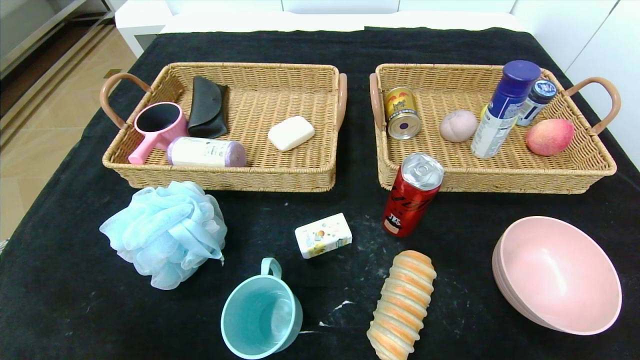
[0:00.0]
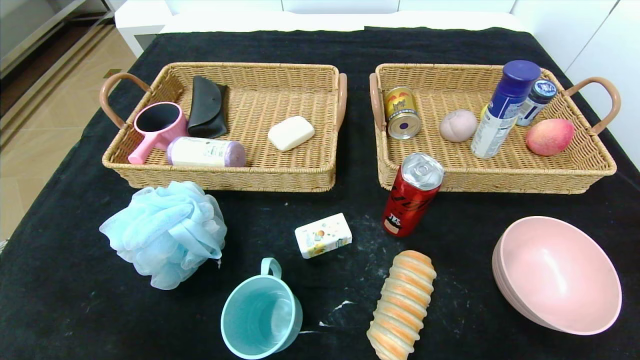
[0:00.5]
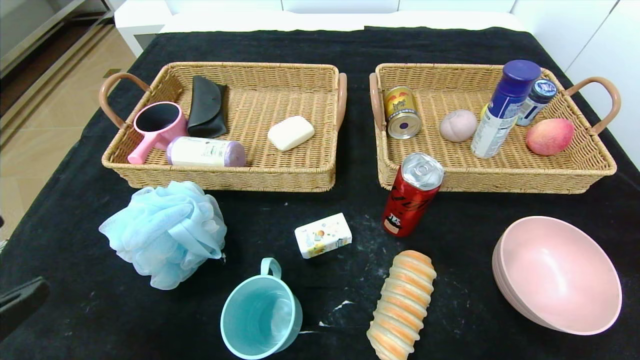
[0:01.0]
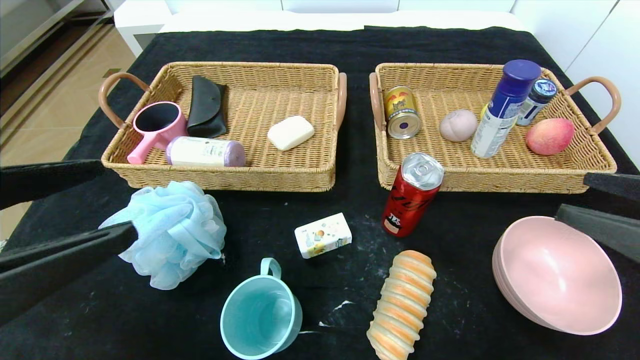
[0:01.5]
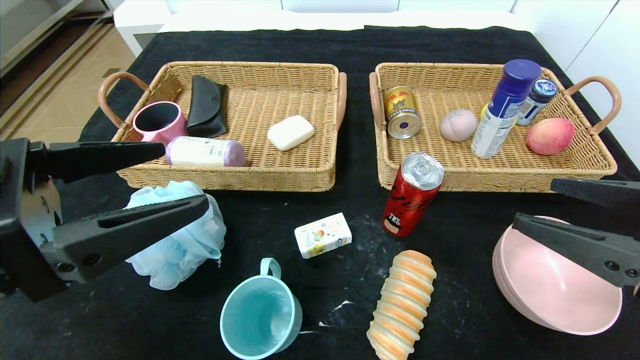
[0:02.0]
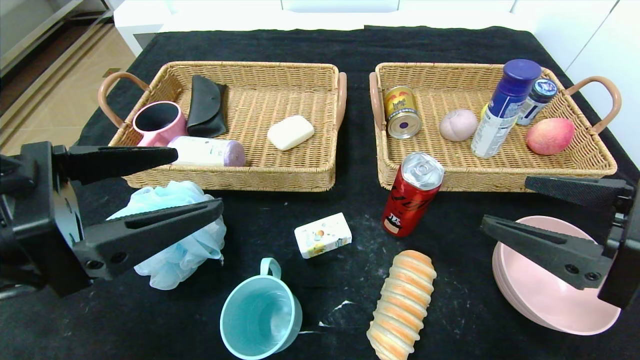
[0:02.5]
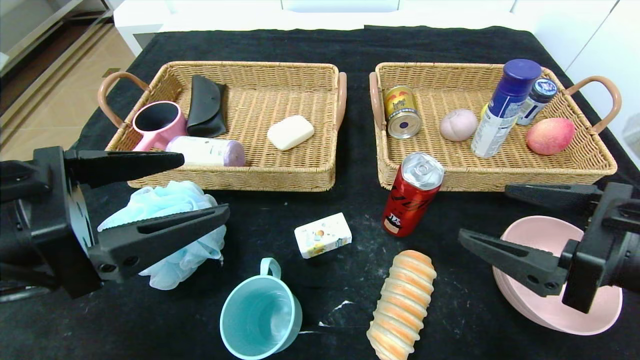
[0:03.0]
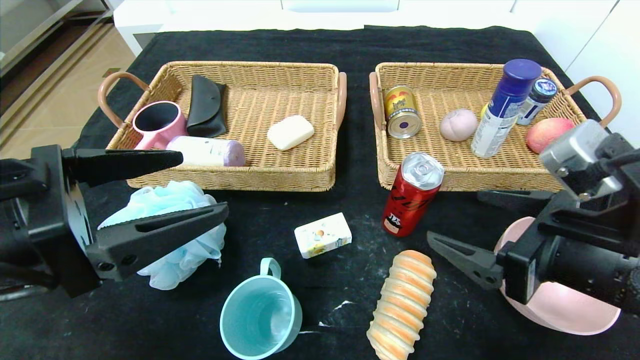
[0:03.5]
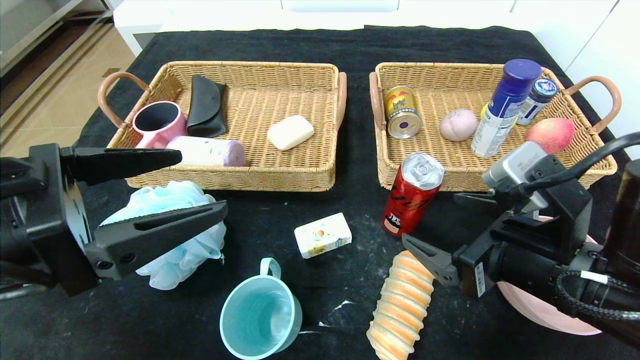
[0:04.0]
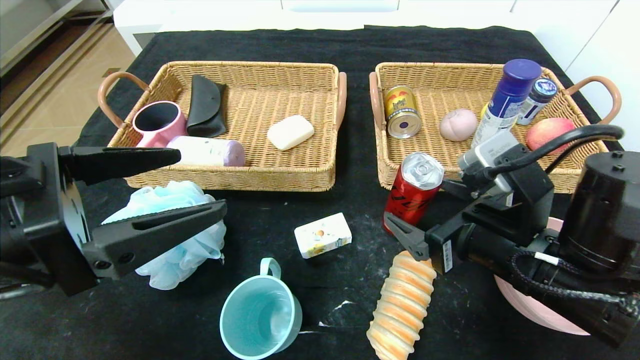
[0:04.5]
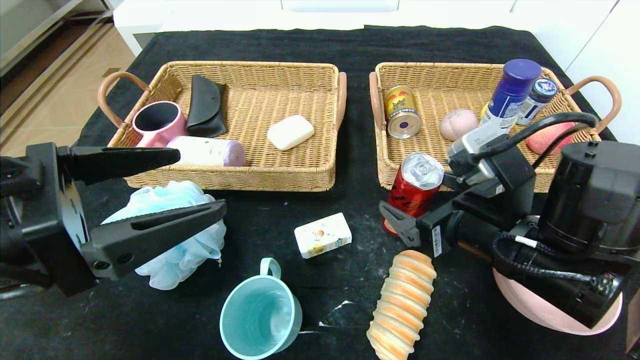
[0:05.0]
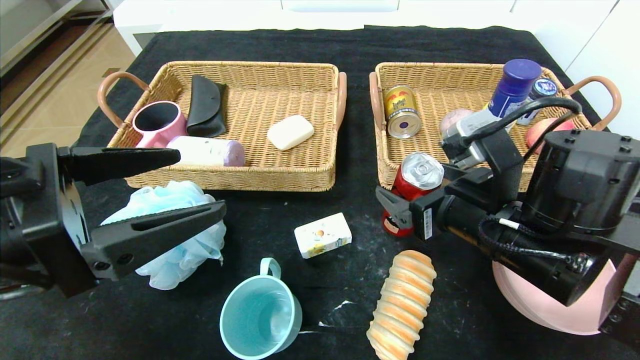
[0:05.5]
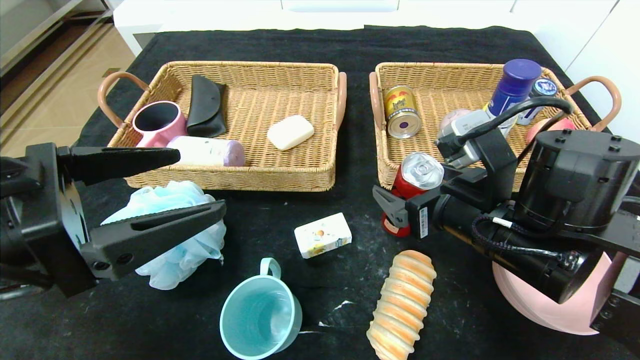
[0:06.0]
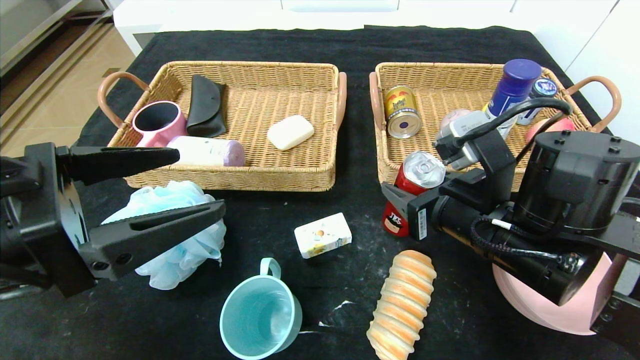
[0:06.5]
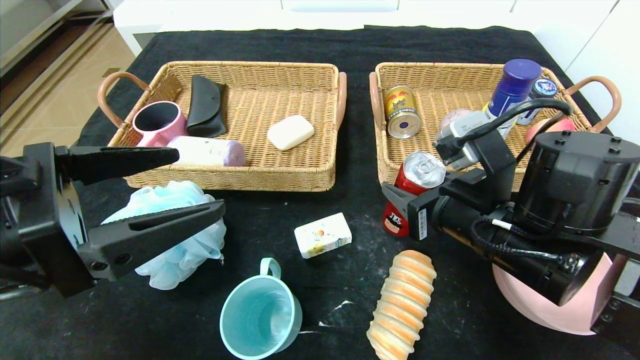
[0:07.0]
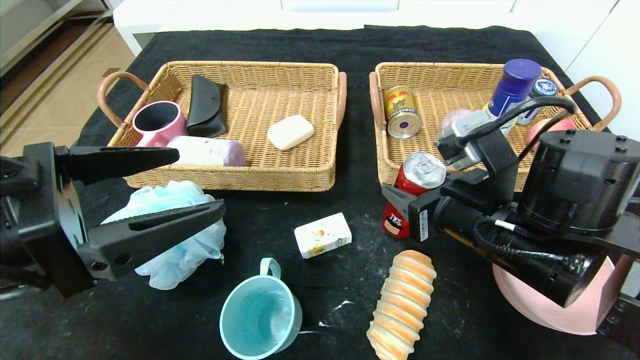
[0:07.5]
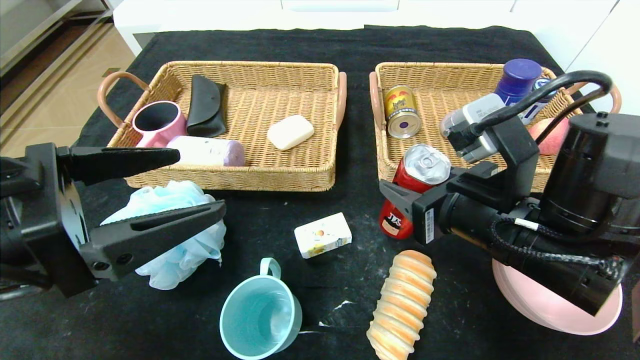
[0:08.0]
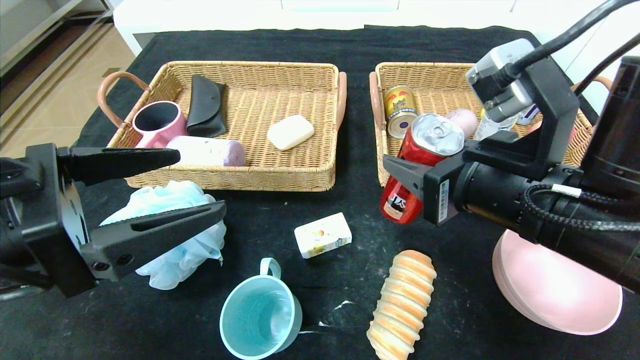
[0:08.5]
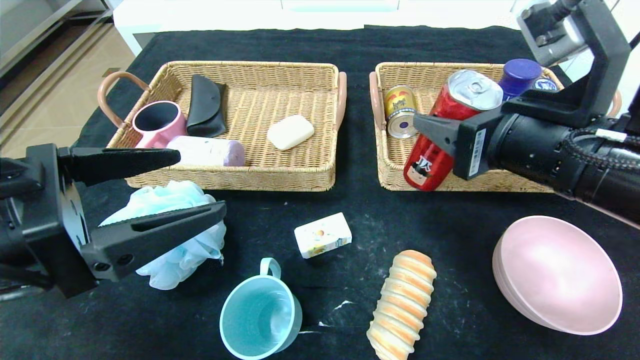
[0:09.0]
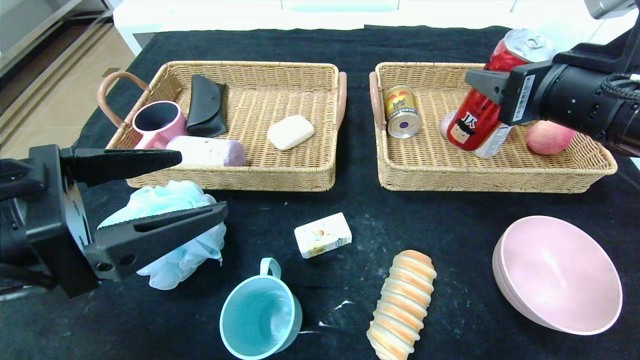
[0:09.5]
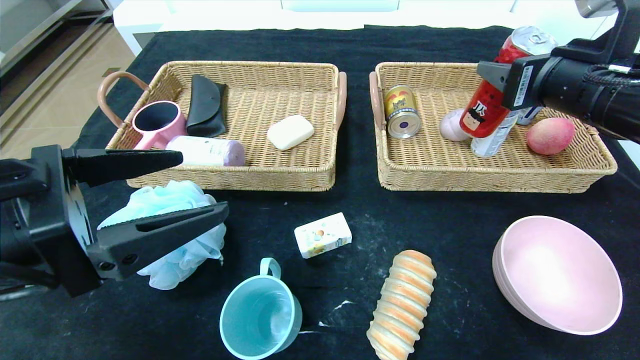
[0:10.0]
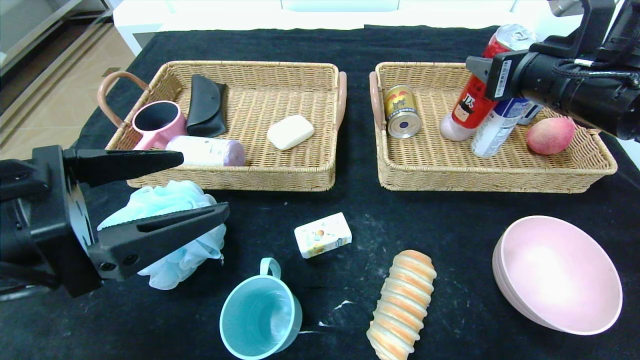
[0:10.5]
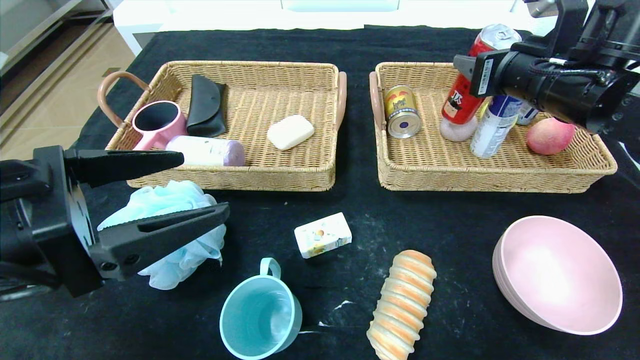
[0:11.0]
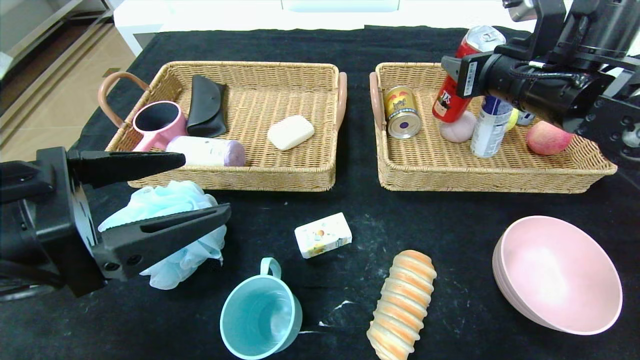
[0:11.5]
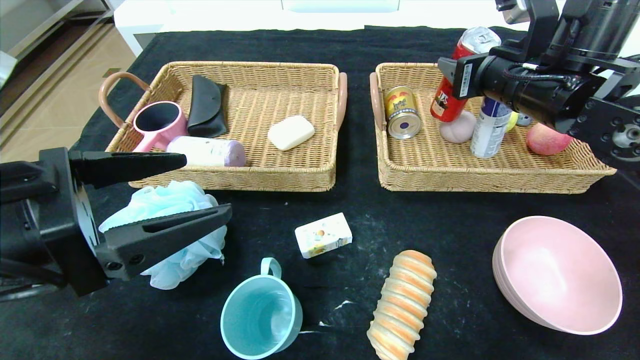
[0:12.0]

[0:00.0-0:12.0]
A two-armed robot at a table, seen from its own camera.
0:00.0 to 0:02.0: The left gripper shifts some 20 cm forward and upward; the right gripper heads forward, upward and to the left, covering about 20 cm.
0:02.0 to 0:04.0: The right gripper heads to the left and downward, covering roughly 10 cm.
0:04.0 to 0:06.0: The right gripper shifts approximately 5 cm forward.
0:06.0 to 0:08.0: The right gripper closes its fingers.
0:08.0 to 0:10.0: The right gripper moves upward, to the right and forward, roughly 15 cm.
0:10.0 to 0:12.0: The right gripper shifts some 10 cm forward.

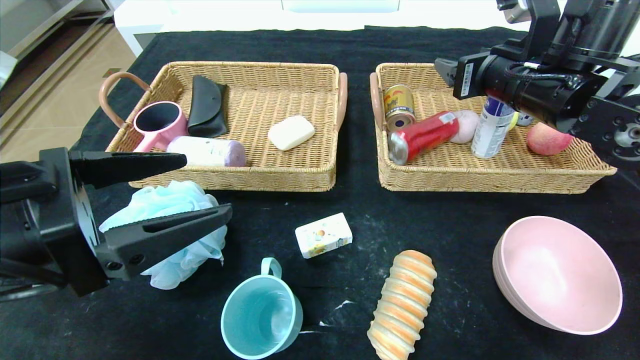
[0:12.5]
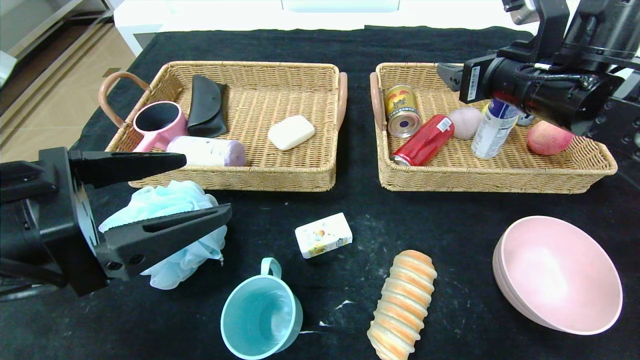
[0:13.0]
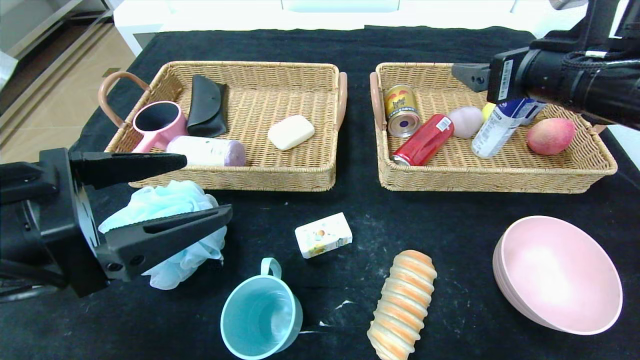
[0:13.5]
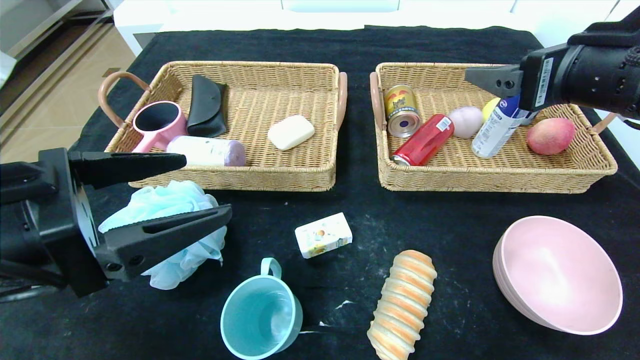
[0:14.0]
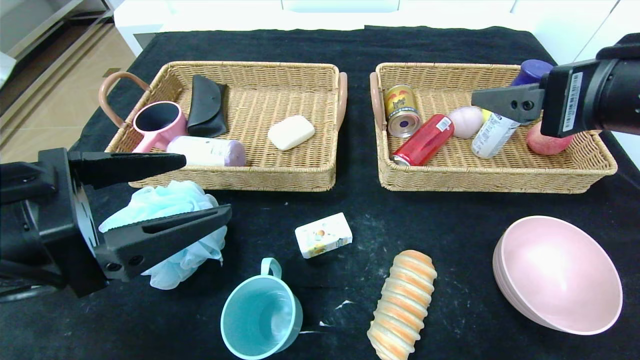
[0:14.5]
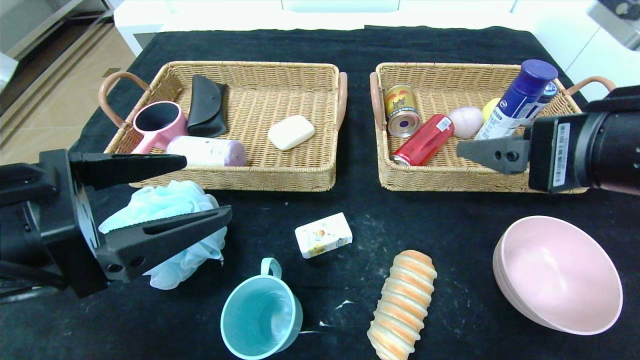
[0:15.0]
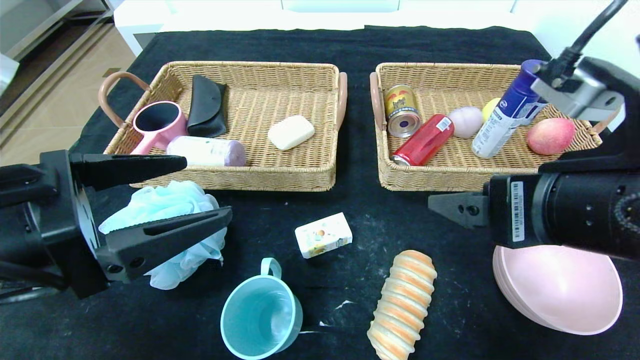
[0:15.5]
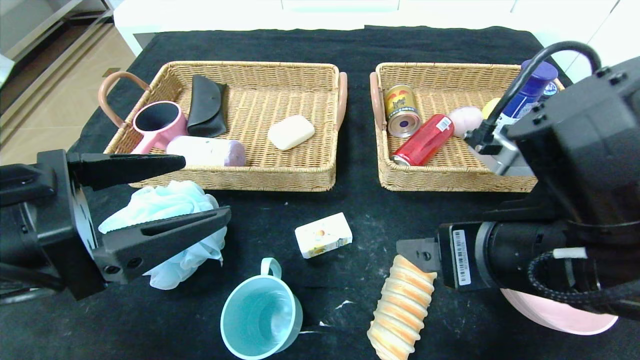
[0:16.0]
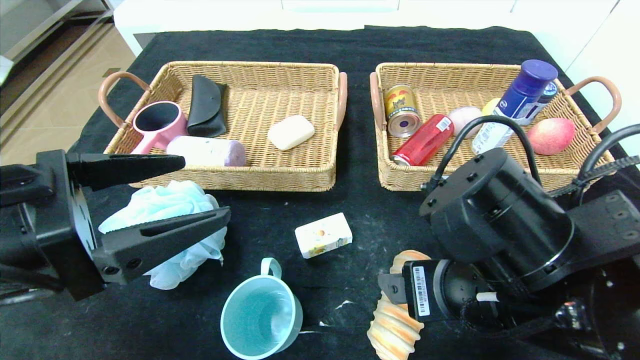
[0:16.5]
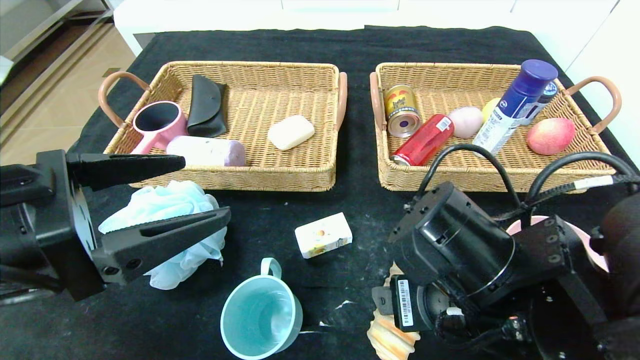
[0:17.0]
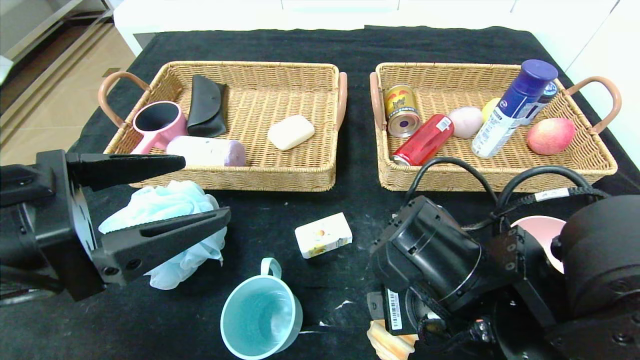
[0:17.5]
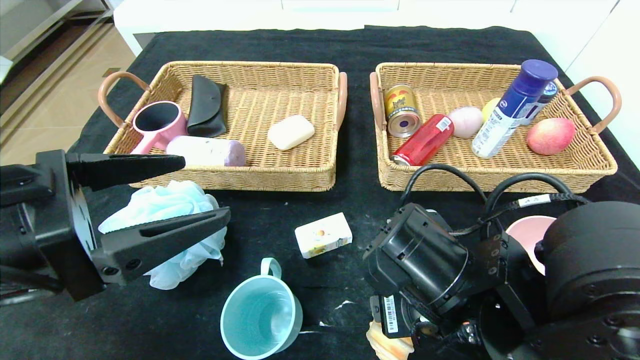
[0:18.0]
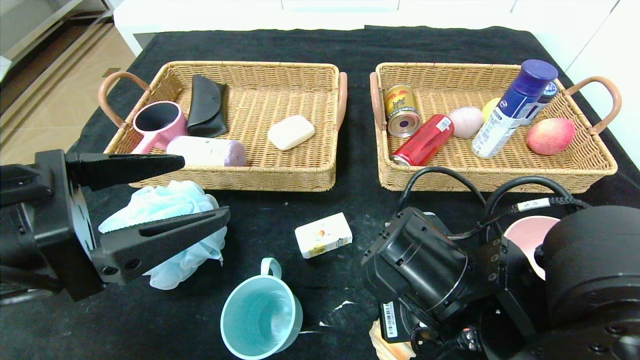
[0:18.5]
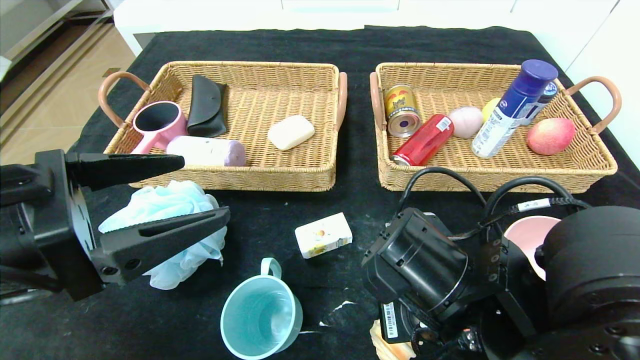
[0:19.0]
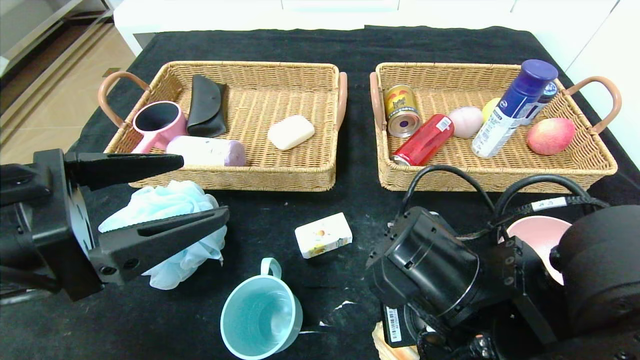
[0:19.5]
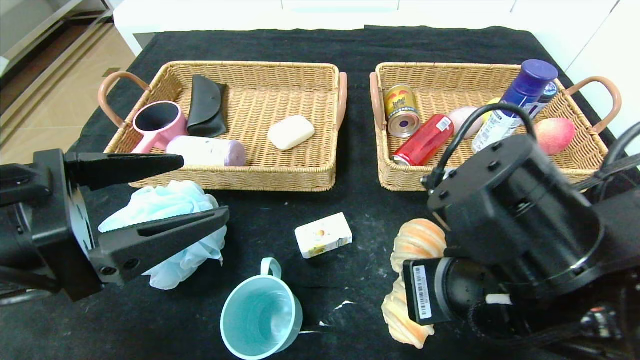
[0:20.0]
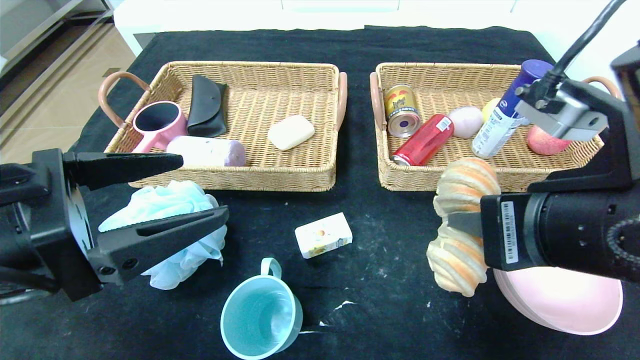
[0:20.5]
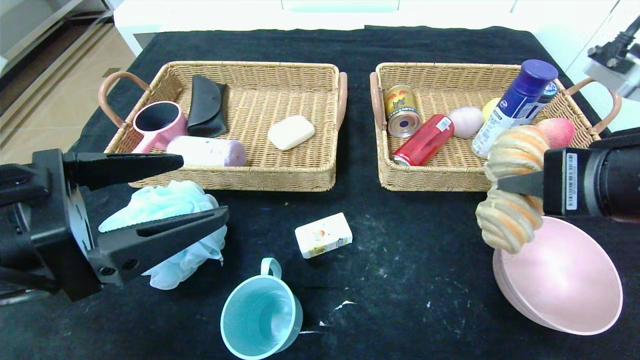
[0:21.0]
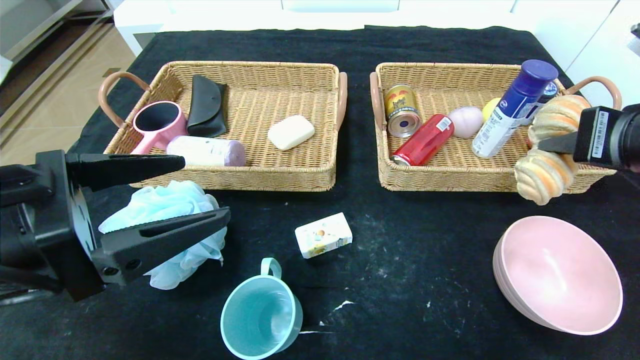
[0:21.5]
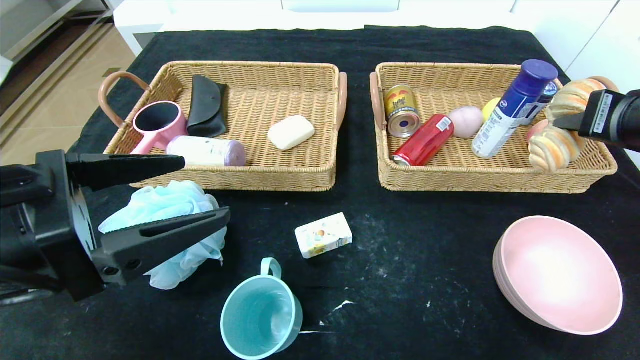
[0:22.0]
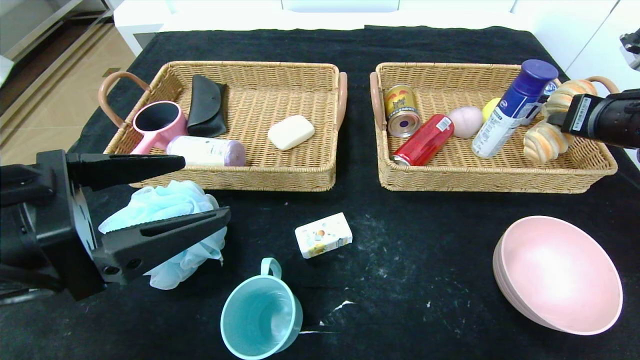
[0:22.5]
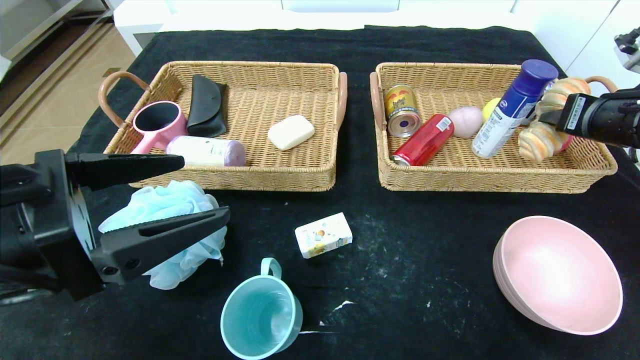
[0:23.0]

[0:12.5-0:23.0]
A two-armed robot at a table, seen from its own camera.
0:12.5 to 0:14.5: The right gripper travels backward by approximately 15 cm.
0:14.5 to 0:16.5: The right gripper goes approximately 15 cm downward and to the left.
0:16.5 to 0:19.0: The right gripper moves approximately 5 cm, and closes up.
0:19.0 to 0:21.0: The right gripper moves upward and to the right, roughly 20 cm.
0:21.0 to 0:23.0: The right gripper is displaced forward and to the right by roughly 20 cm.
